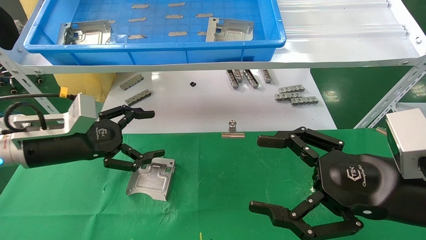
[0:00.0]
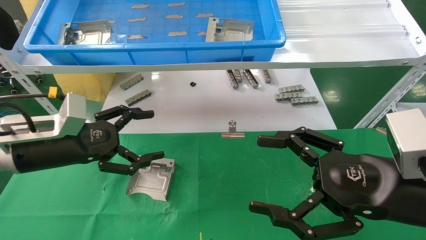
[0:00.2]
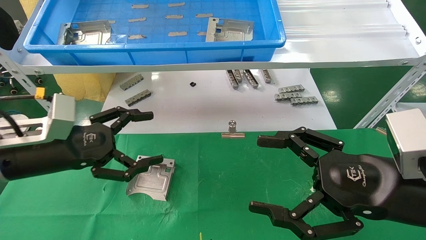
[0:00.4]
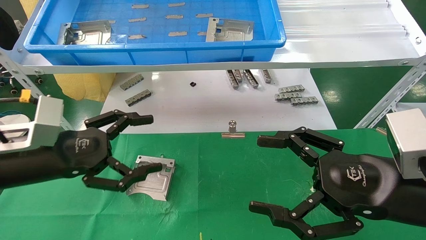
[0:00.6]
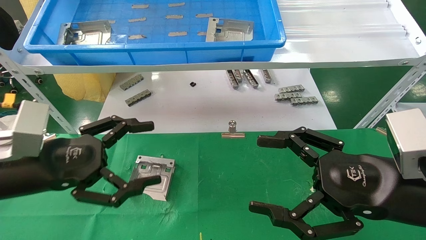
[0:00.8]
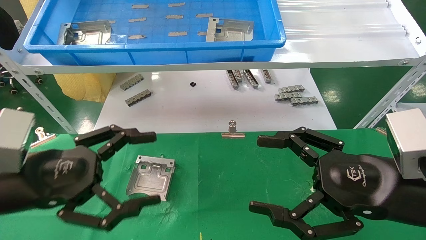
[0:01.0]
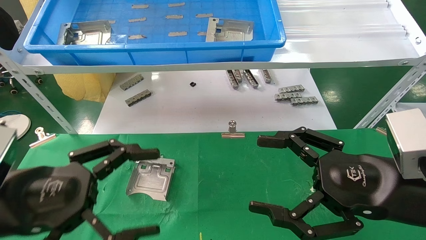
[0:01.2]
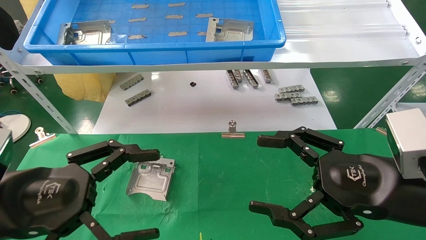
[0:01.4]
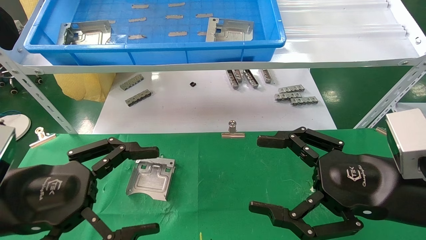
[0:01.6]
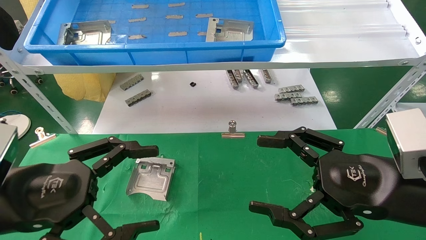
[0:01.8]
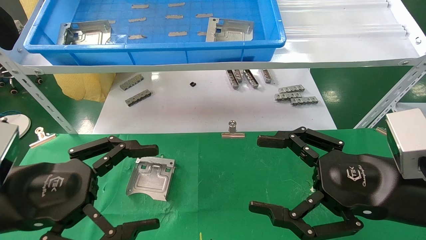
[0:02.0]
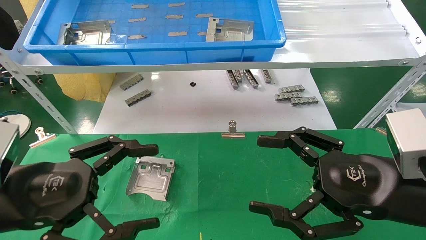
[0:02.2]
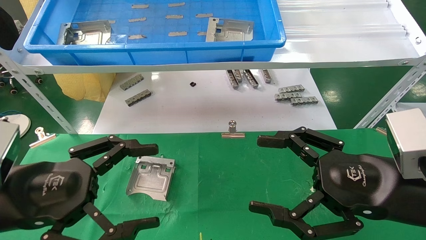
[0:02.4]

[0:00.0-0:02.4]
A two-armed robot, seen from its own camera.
Task of the whole recording: use the mechanical arm to pick up the parts and place them on the table.
0:00.0 to 0:01.2: The left gripper moves backward, about 15 cm.
0:01.2 to 0:02.4: The two grippers keep their place.

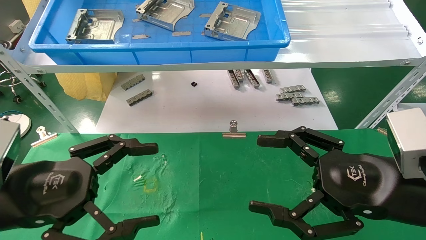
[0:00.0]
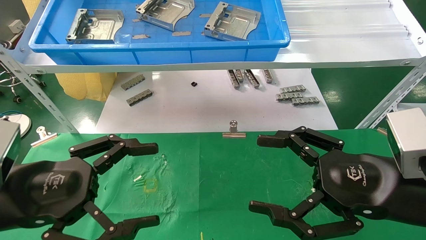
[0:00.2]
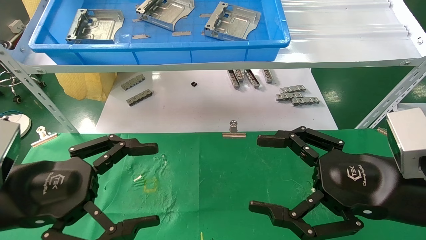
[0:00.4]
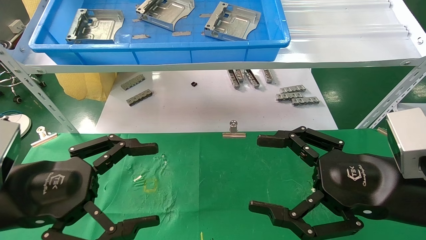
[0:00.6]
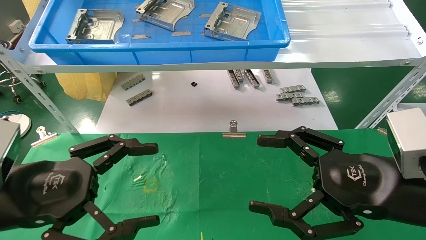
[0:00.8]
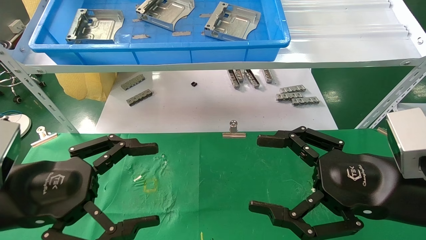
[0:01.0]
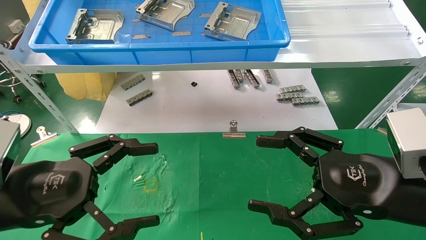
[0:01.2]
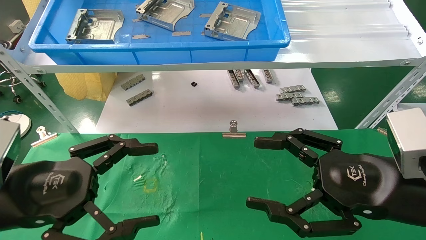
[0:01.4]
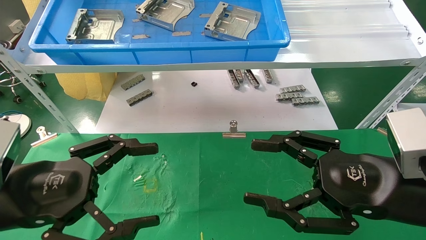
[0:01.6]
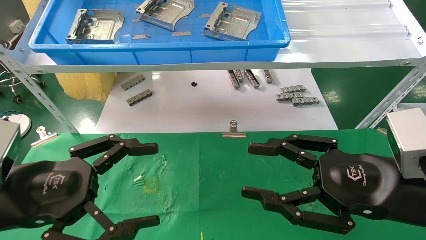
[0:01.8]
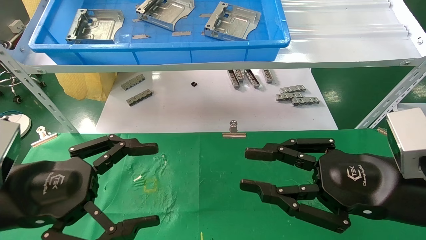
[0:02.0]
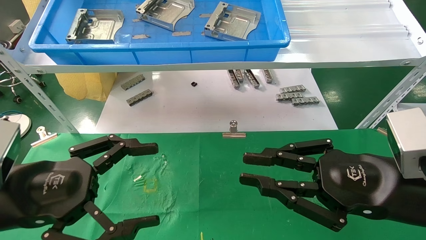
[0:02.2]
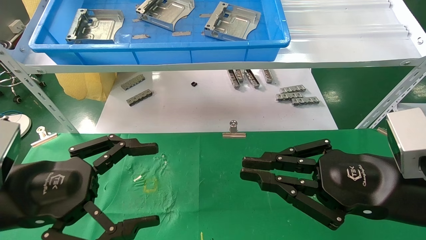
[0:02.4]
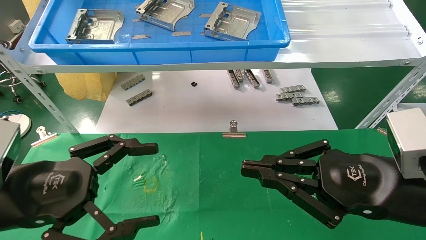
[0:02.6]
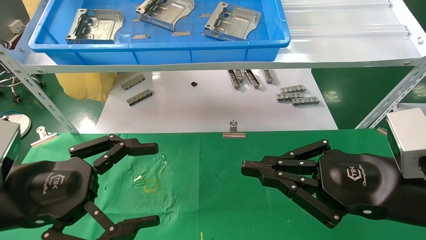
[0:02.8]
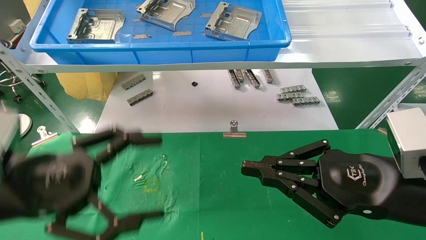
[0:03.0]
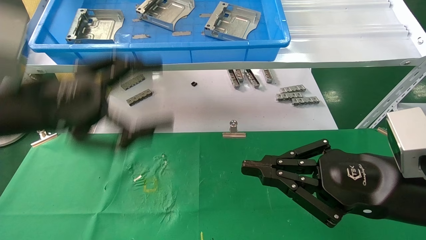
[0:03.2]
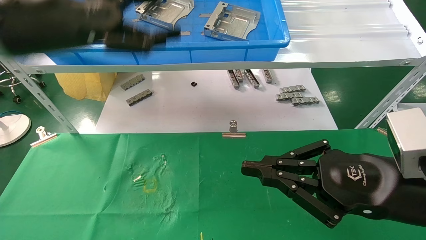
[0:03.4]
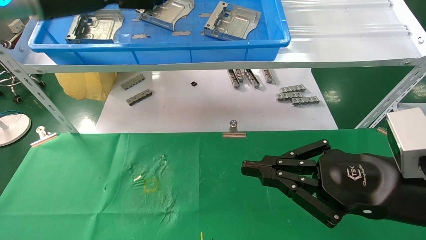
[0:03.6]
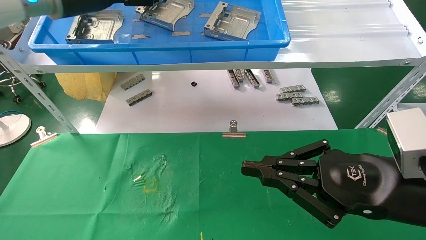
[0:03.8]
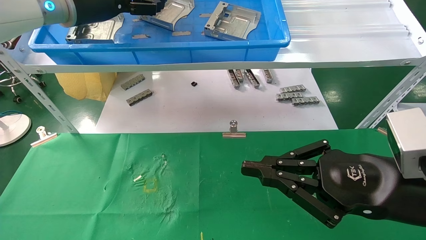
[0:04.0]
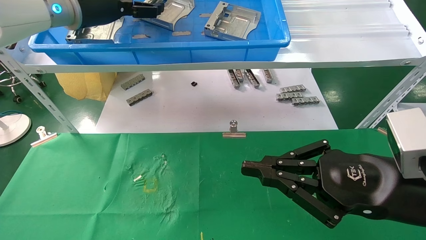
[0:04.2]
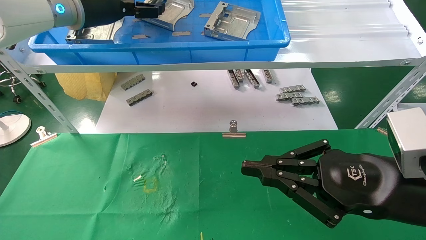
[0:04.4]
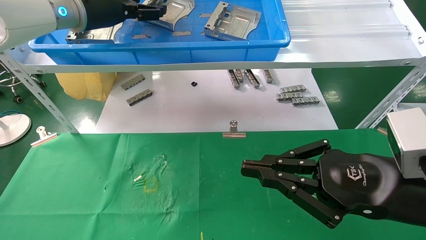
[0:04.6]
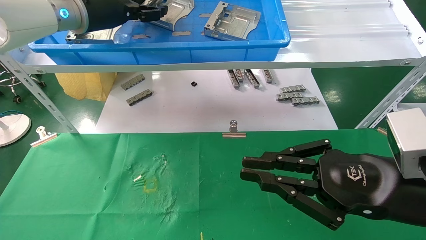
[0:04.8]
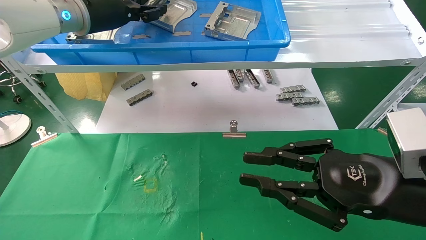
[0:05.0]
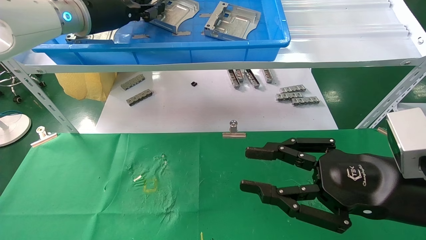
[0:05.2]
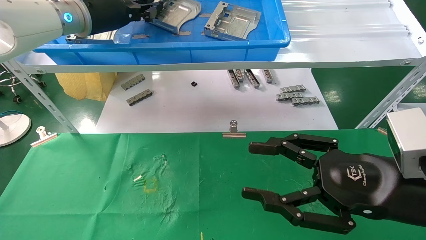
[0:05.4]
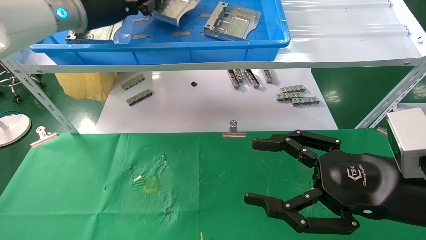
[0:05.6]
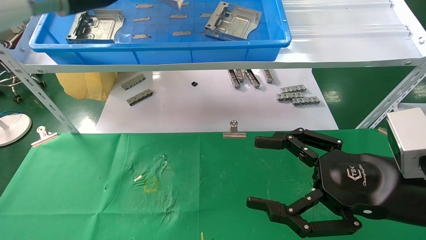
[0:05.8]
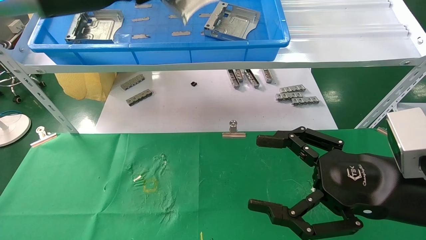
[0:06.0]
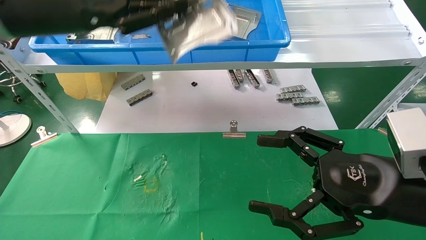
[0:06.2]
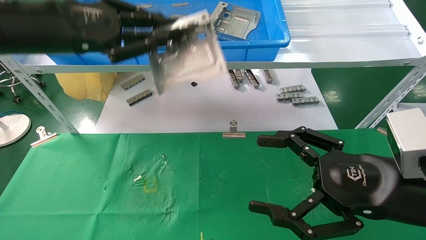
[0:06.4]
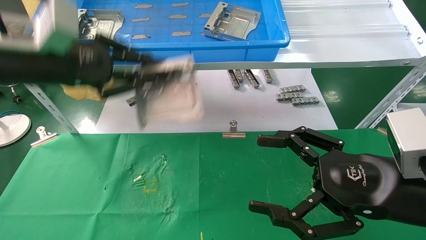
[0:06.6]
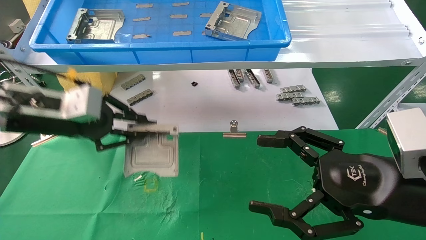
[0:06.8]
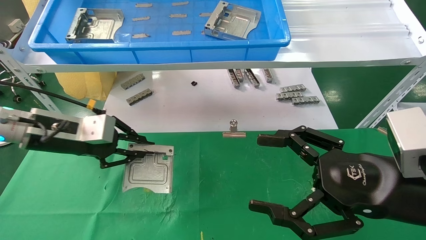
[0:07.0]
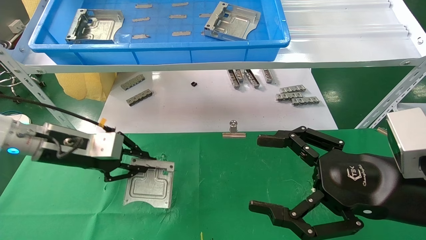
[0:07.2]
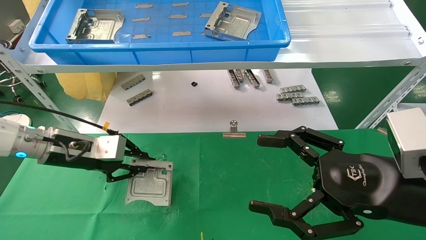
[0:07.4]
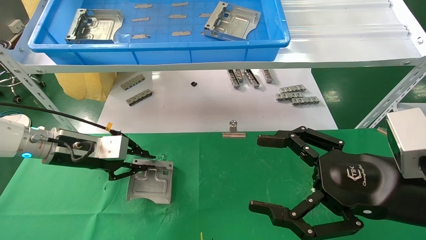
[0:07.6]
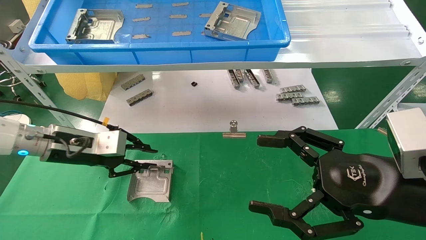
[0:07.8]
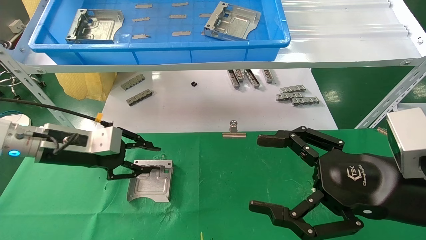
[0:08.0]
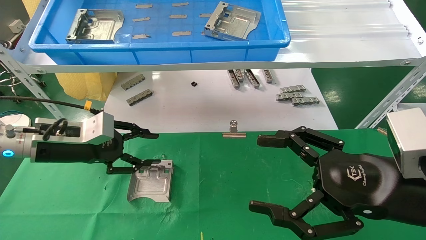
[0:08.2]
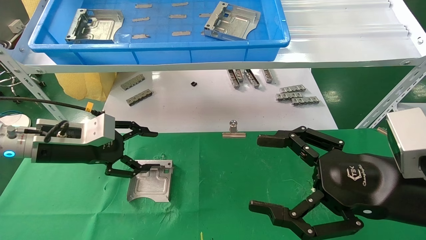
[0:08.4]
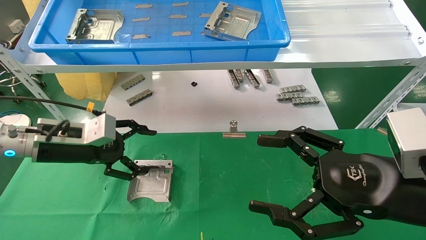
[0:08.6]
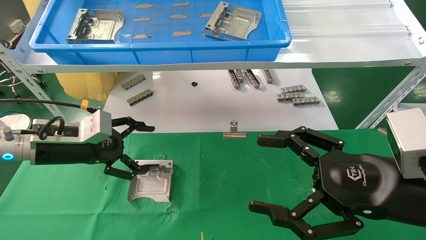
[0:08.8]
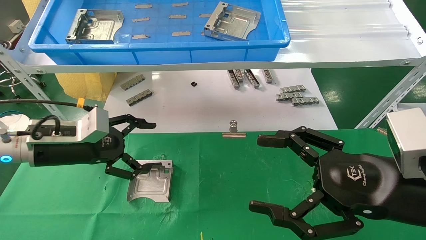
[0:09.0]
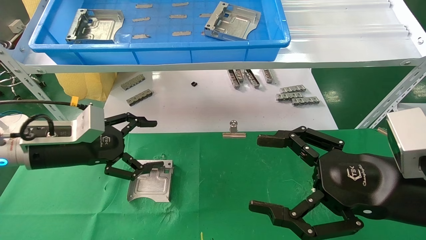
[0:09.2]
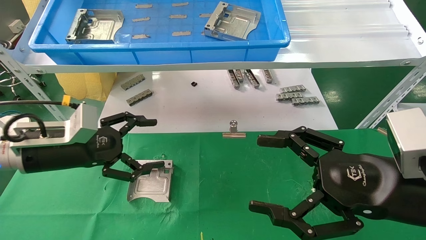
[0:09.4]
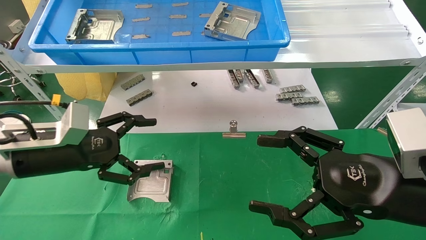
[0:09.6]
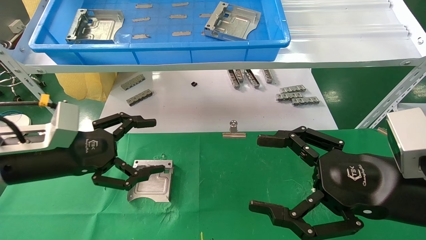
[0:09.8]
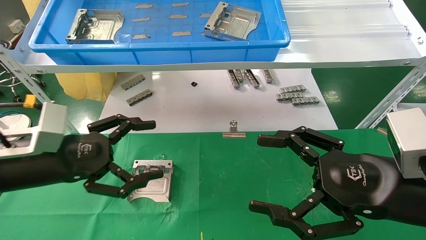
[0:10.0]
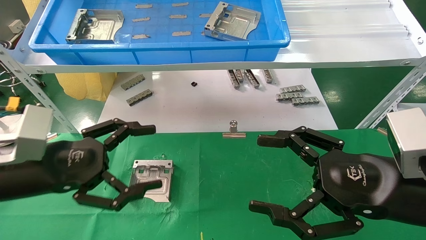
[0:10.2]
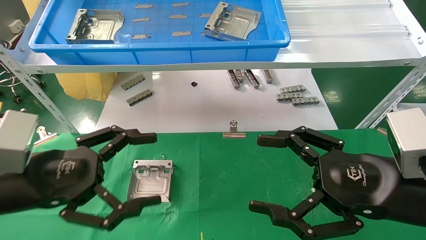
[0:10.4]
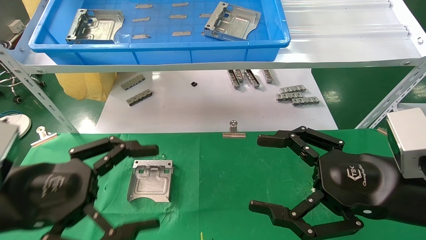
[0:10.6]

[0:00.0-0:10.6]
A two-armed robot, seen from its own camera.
Task of the whole recording: use the mechanical arm to pick up the parts and place them on the table.
Step, 0:03.4 to 0:05.4: Pick up the hard drive bracket from the feeding area.
Step, 0:05.6 to 0:07.8: Place the hard drive bracket into the box.
0:00.0 to 0:01.6: Both grippers stay put.
0:01.6 to 0:03.0: The left gripper moves approximately 5 cm; the right gripper closes its fingers.
0:03.0 to 0:04.6: The left gripper goes some 30 cm forward and upward.
0:04.6 to 0:06.0: The left gripper is displaced backward by approximately 10 cm, and closes up. The right gripper opens up.
0:06.0 to 0:07.6: The left gripper shifts approximately 25 cm downward.
0:07.6 to 0:09.0: The left gripper opens its fingers.
0:09.0 to 0:10.6: The left gripper shifts approximately 15 cm backward.

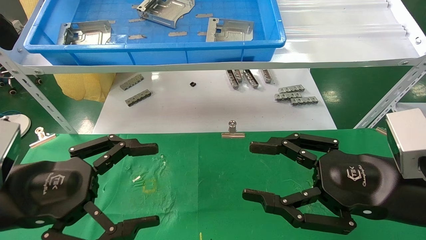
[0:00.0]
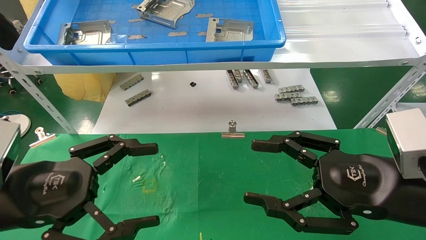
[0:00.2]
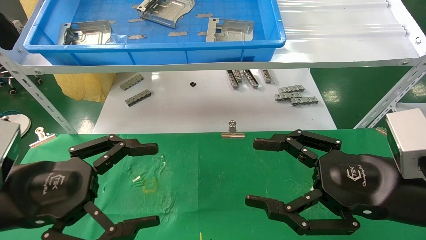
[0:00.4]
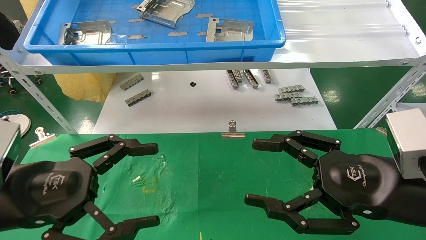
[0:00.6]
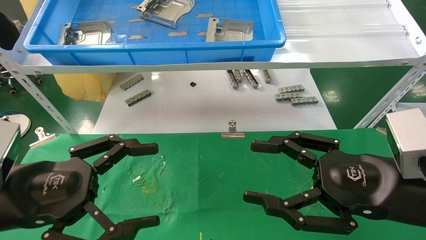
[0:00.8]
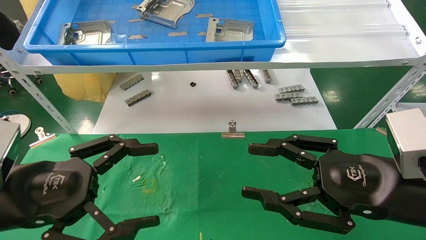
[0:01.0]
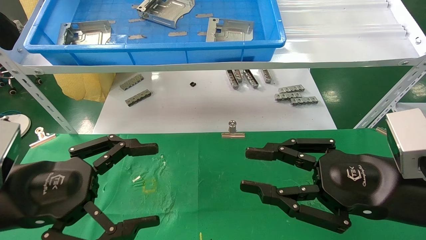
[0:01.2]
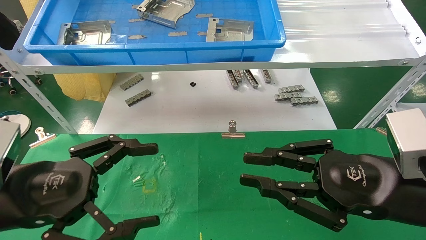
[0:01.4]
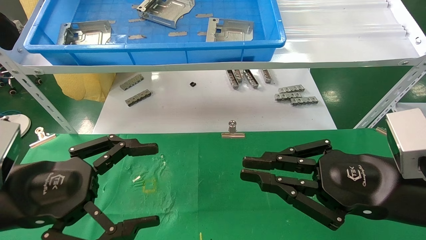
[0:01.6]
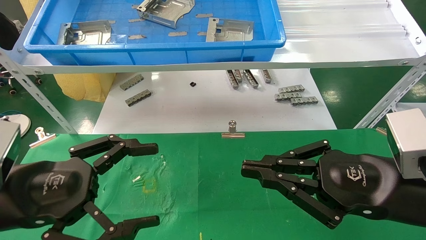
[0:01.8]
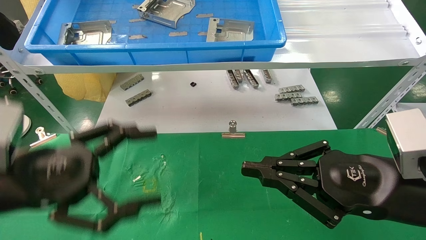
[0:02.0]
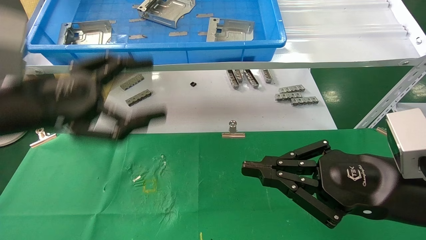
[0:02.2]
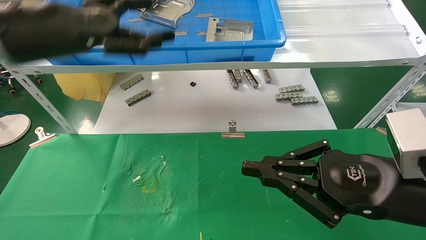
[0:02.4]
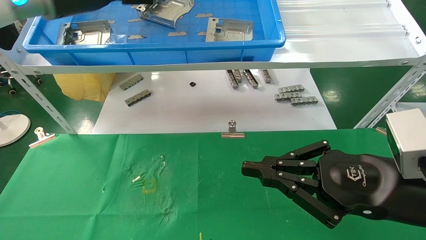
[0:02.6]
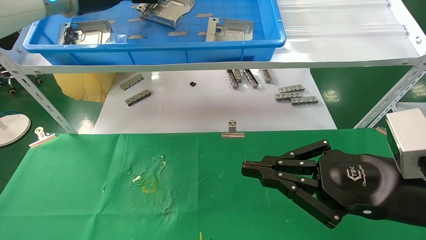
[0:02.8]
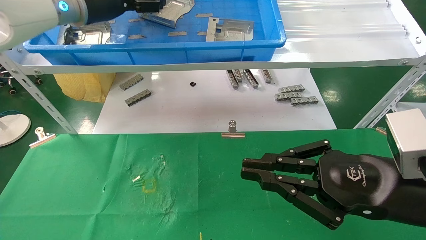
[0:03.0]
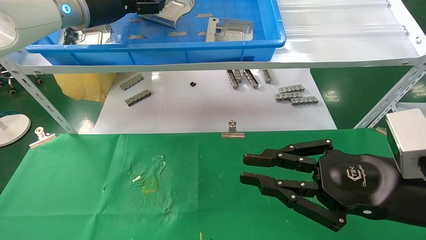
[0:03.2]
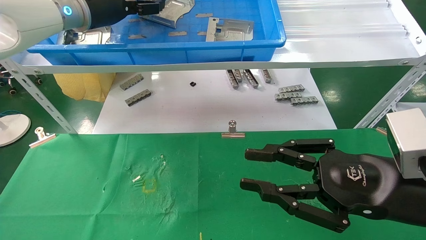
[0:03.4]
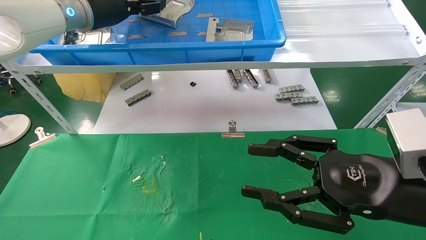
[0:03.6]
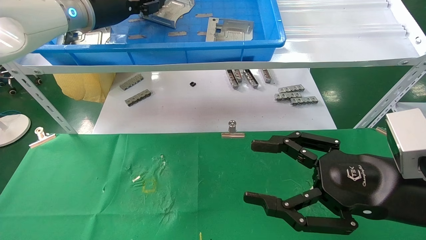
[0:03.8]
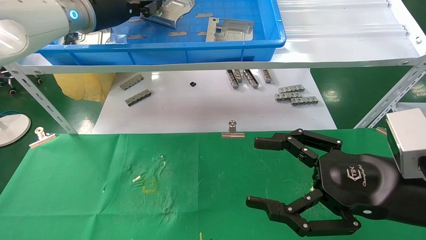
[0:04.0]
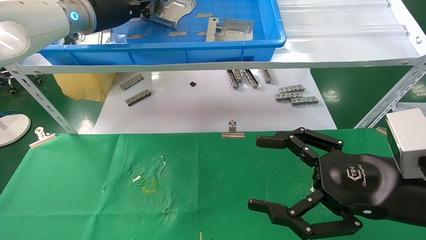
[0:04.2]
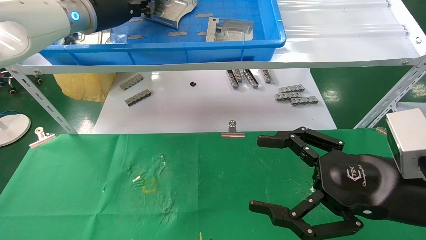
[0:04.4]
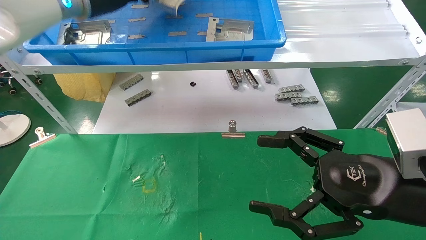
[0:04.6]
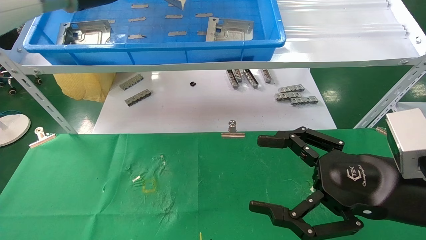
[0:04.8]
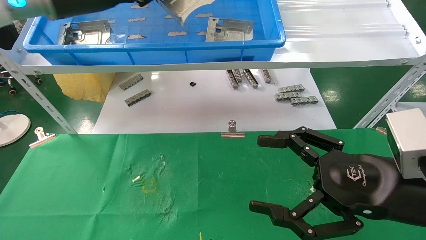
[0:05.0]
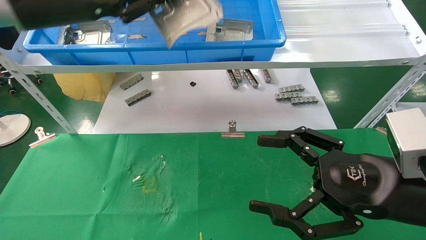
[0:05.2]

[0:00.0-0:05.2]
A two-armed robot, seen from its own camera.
Task of the whole recording: use the mechanical arm to pick up the parts and place them on the table.
Step, 0:02.2 to 0:04.2: Pick up the hard drive bracket from the feeding area.
0:00.0 to 0:01.8: The right gripper closes its fingers.
0:01.8 to 0:03.4: The left gripper travels forward and upward by approximately 35 cm.
0:03.4 to 0:05.2: The left gripper moves backward, about 10 cm, and closes its fingers; the right gripper opens up.
